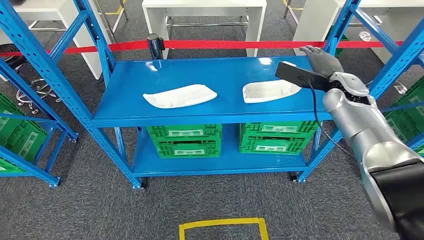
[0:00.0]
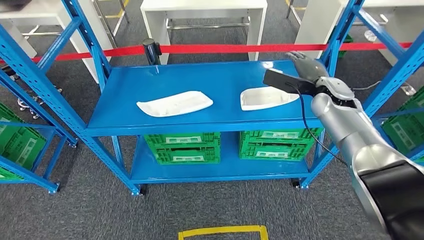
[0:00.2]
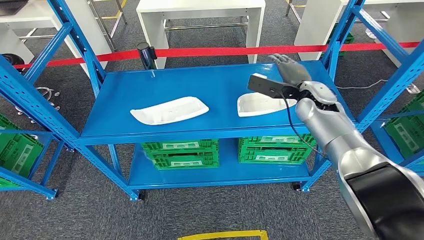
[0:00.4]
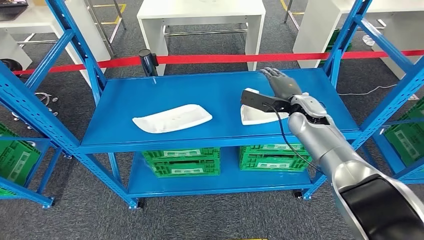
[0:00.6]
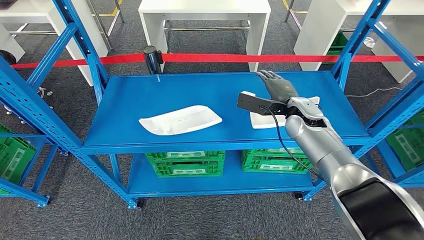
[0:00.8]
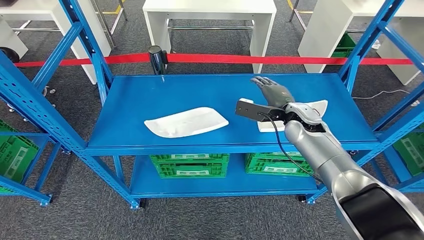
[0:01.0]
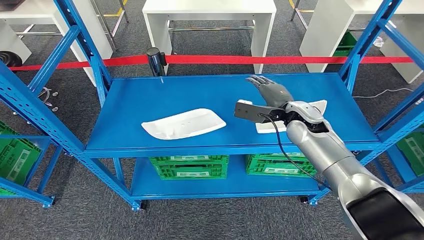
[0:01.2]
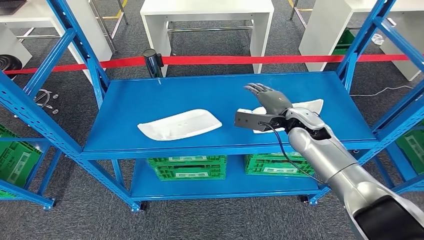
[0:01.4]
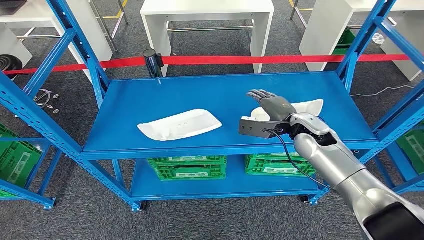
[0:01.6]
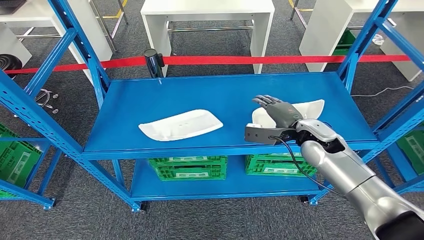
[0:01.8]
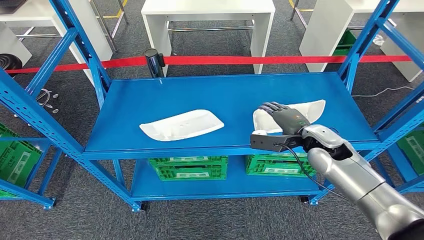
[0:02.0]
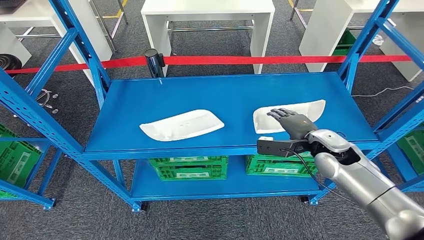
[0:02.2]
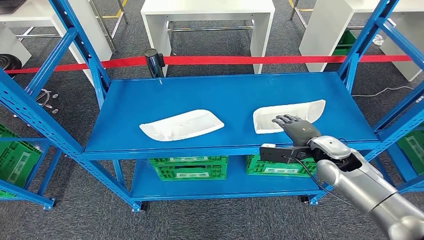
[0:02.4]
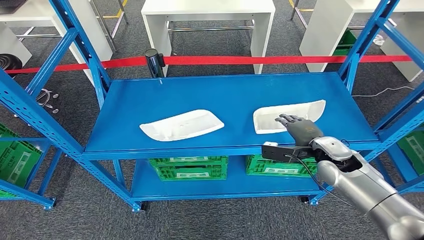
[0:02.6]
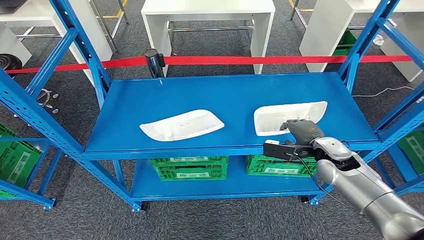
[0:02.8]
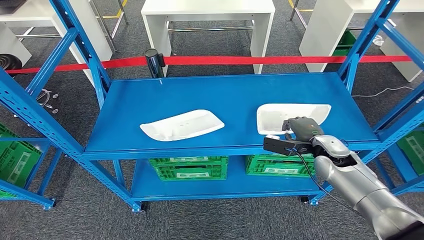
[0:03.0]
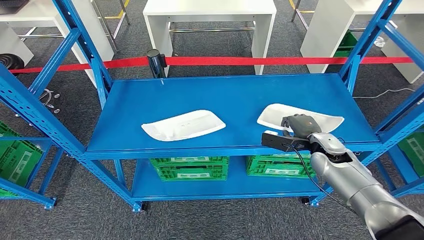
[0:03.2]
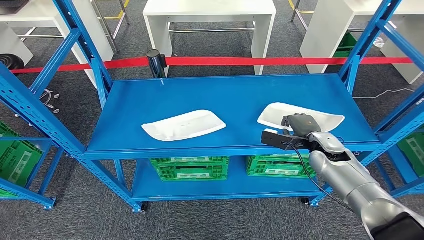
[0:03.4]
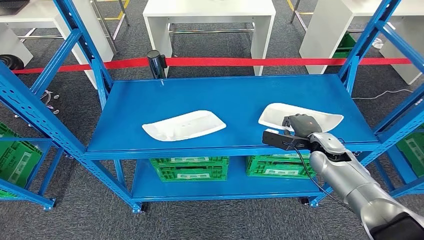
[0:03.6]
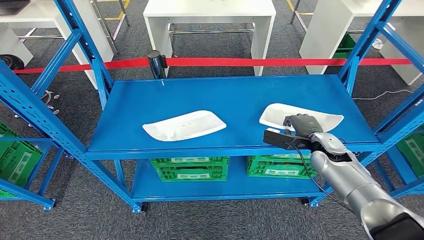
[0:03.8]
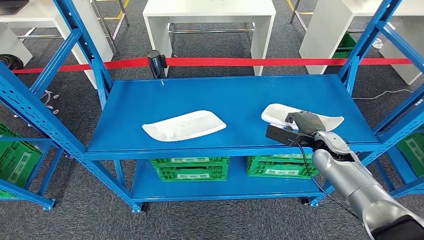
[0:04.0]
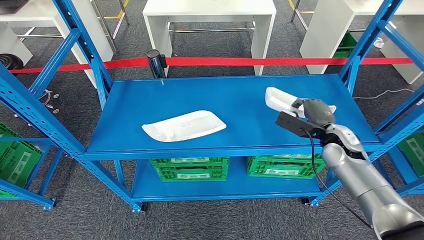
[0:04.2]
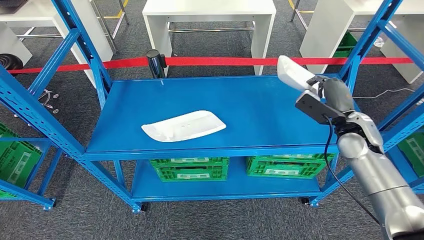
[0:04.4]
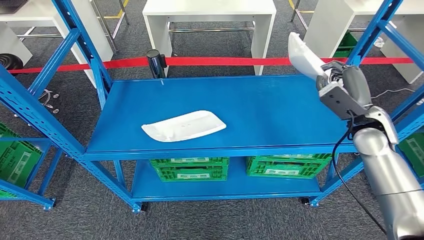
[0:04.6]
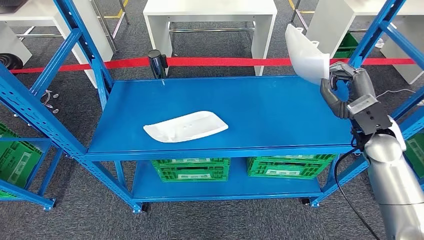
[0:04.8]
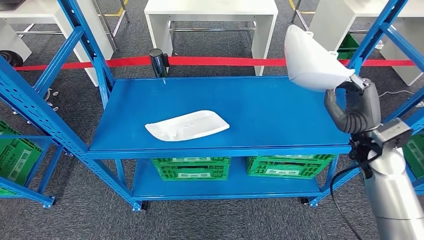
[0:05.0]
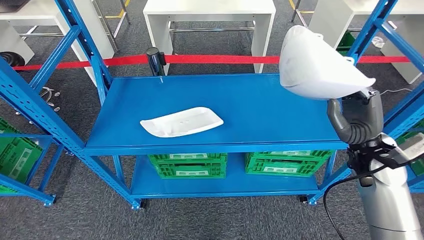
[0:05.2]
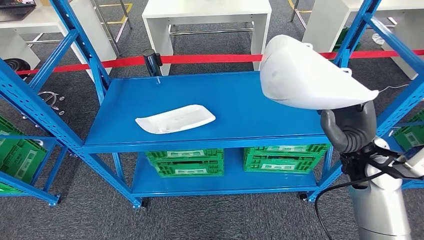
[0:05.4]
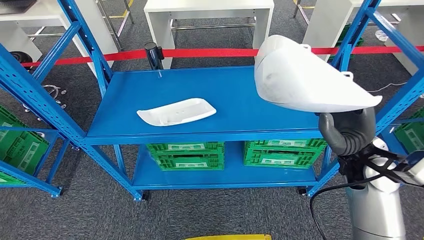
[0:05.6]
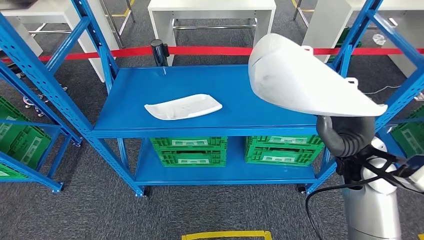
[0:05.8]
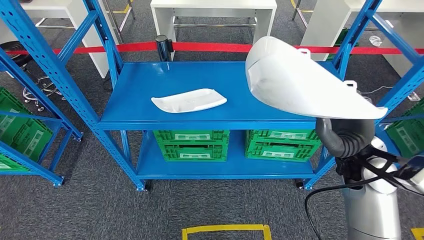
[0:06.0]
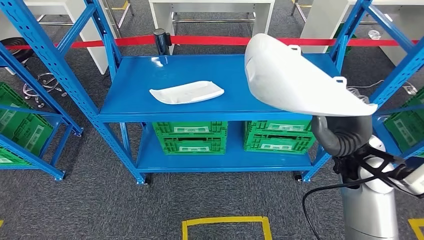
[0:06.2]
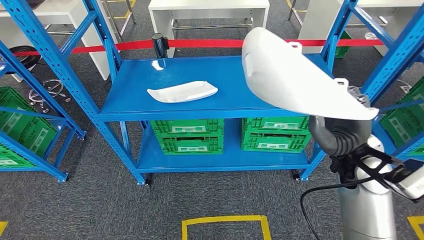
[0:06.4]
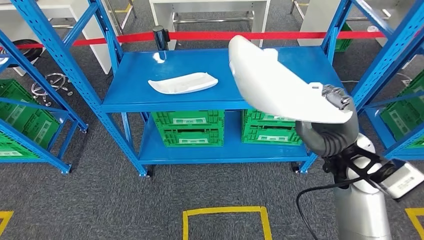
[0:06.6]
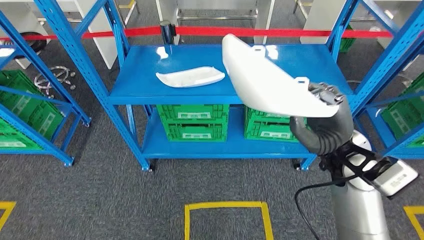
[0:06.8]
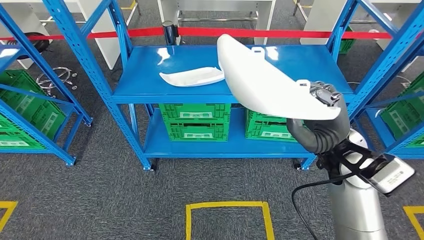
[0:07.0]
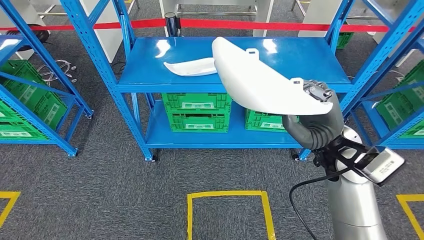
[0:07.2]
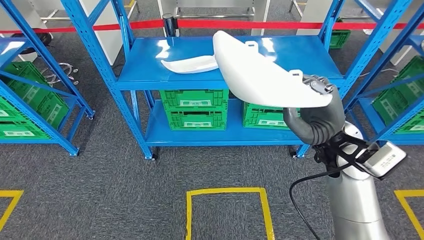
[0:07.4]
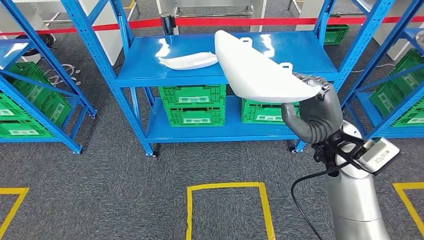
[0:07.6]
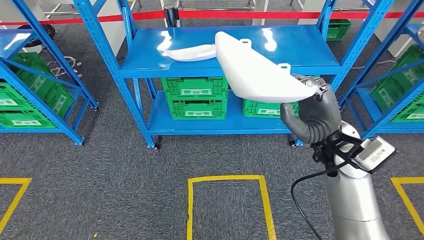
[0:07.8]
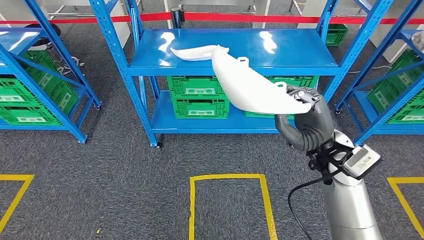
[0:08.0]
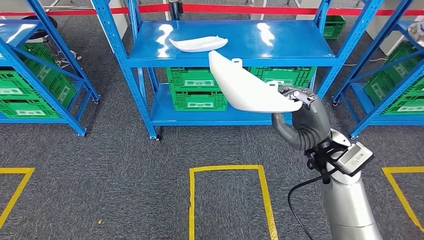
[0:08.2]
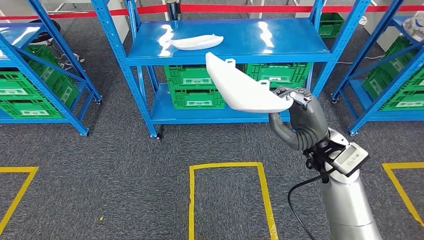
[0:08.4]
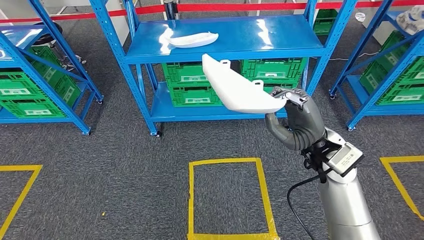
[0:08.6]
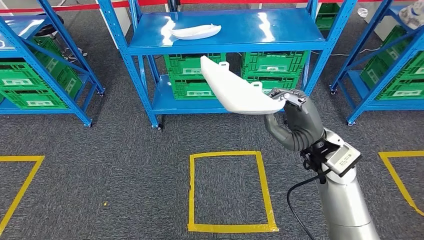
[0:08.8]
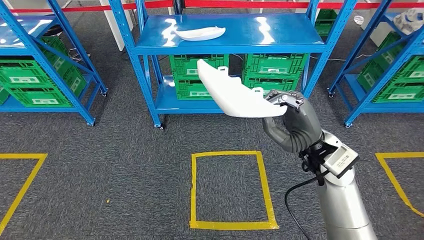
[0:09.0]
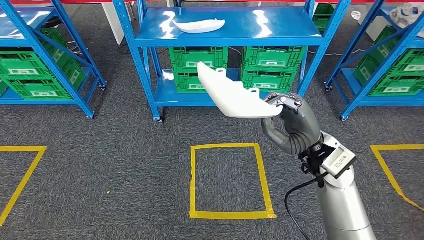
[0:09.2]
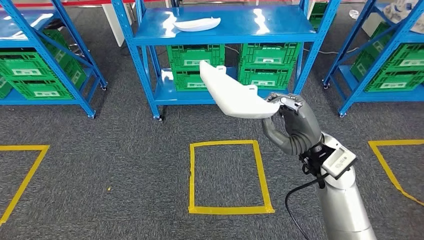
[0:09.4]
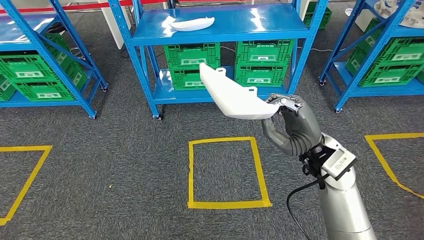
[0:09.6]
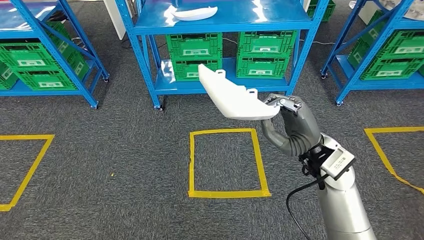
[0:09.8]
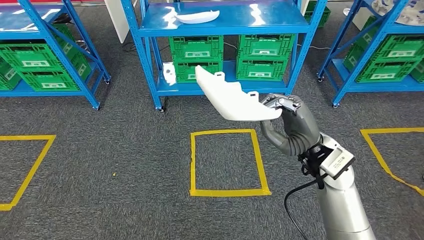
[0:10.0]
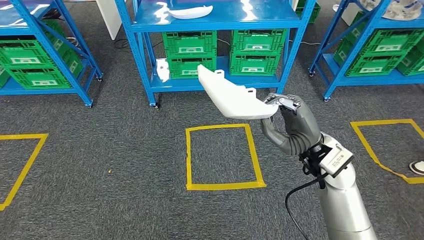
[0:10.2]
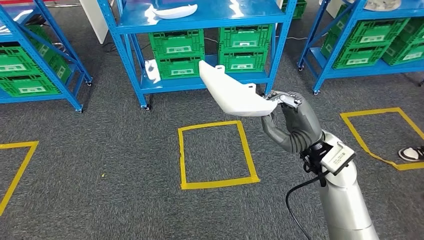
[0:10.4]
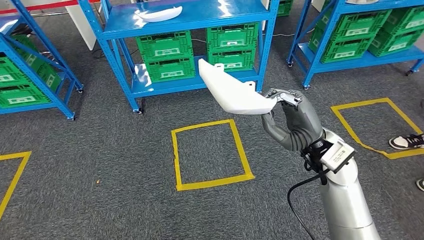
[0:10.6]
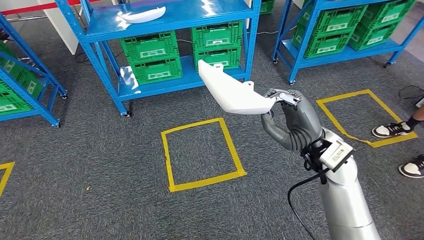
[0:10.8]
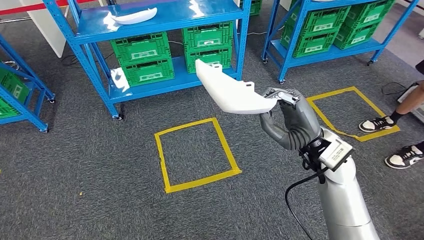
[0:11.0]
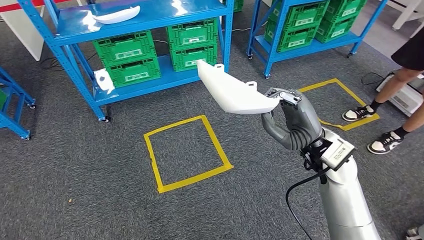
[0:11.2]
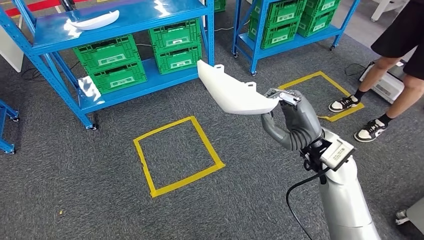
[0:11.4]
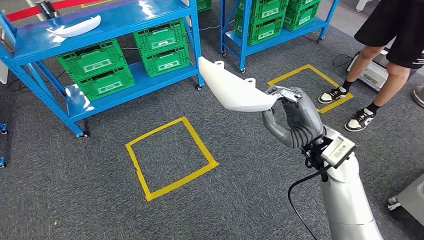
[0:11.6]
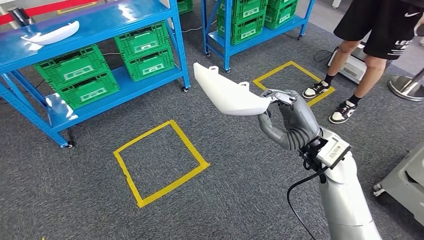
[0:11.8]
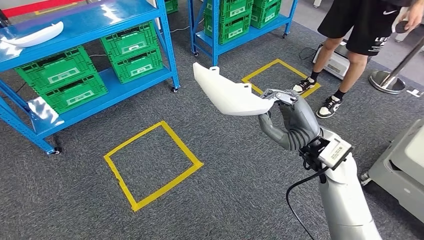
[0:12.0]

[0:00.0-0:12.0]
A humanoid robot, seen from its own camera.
Step, 0:00.0 to 0:06.4: Pick up the small component from the shelf.
0:01.6 to 0:03.0: The right hand travels to the right and downward by about 10 cm.
0:03.0 to 0:04.4: The right hand travels upward by some 10 cm.

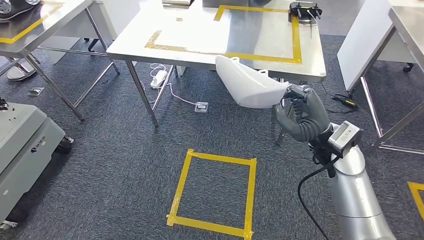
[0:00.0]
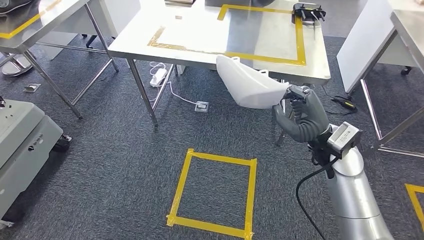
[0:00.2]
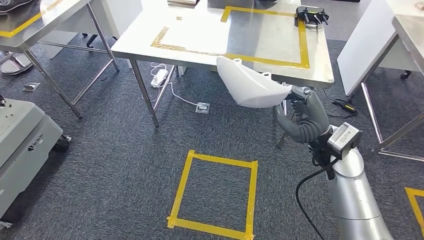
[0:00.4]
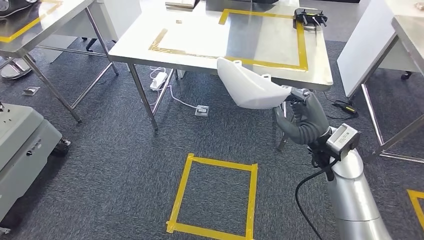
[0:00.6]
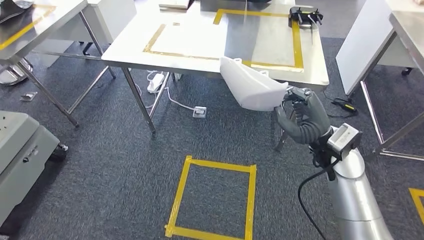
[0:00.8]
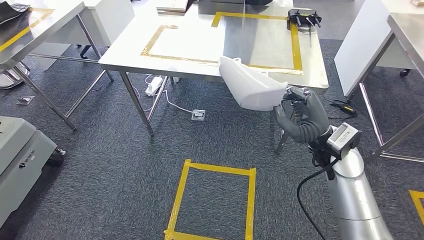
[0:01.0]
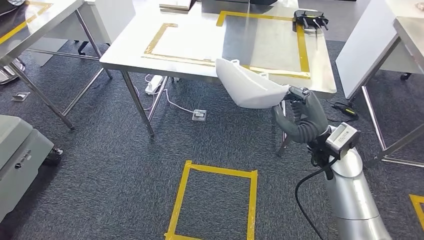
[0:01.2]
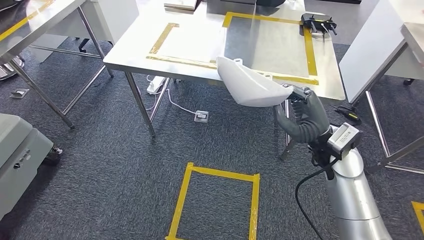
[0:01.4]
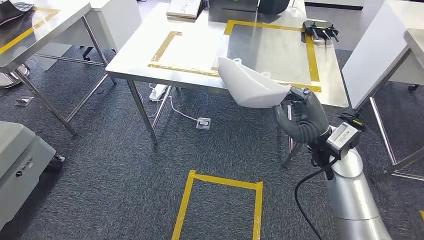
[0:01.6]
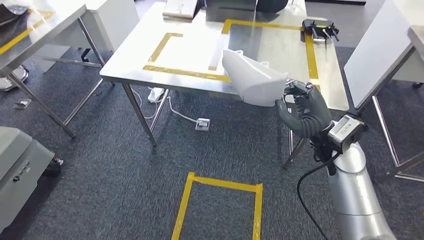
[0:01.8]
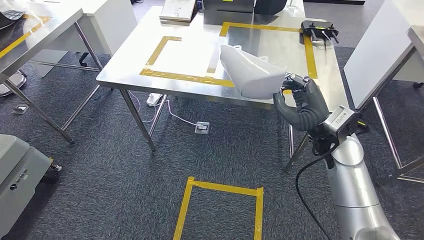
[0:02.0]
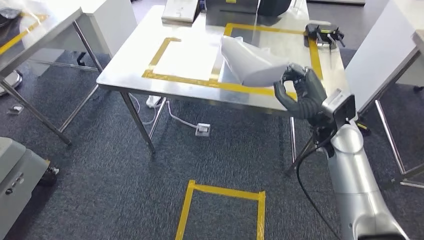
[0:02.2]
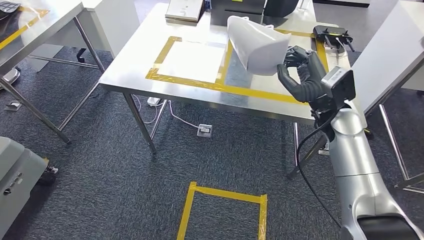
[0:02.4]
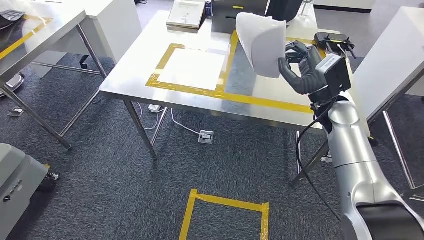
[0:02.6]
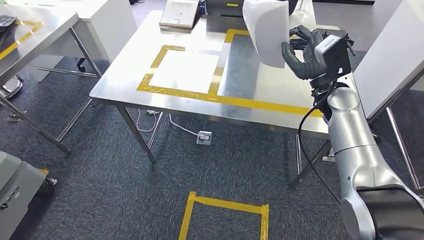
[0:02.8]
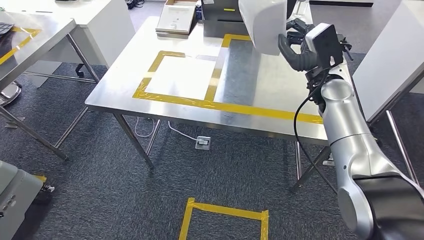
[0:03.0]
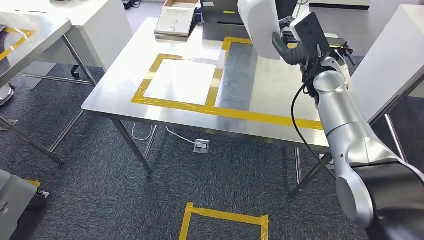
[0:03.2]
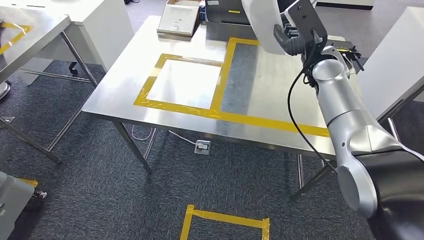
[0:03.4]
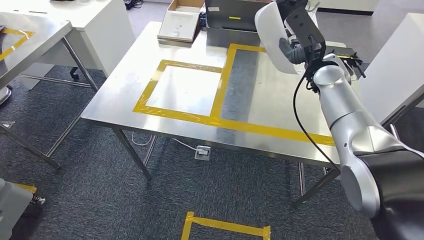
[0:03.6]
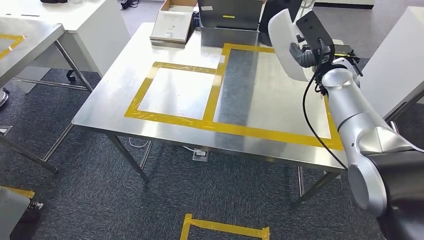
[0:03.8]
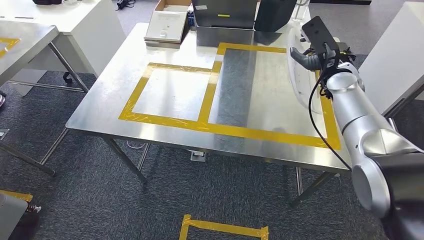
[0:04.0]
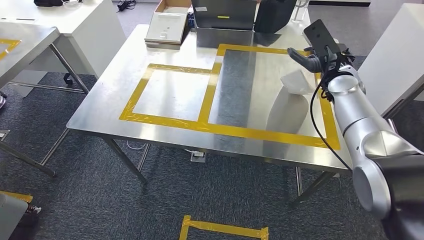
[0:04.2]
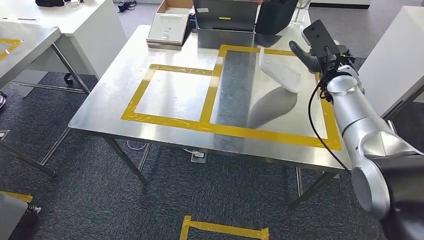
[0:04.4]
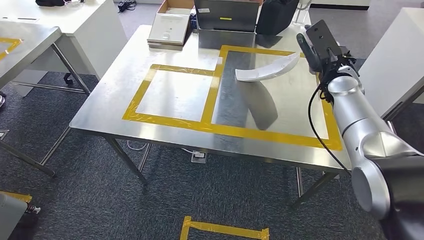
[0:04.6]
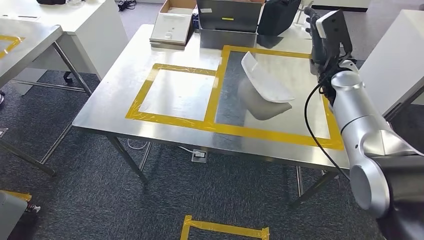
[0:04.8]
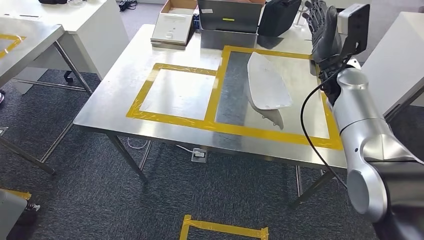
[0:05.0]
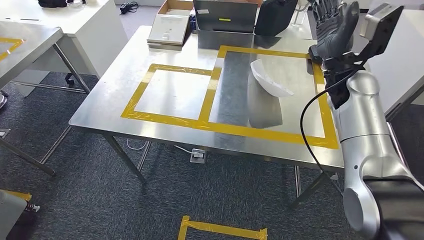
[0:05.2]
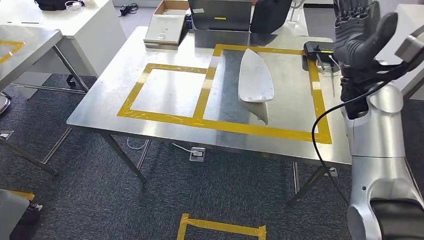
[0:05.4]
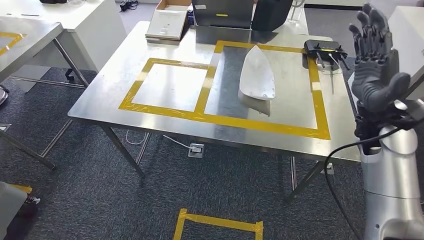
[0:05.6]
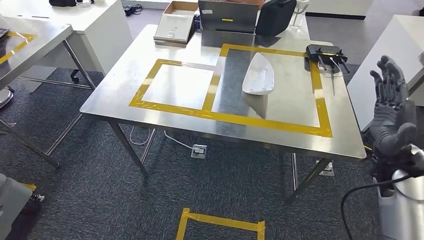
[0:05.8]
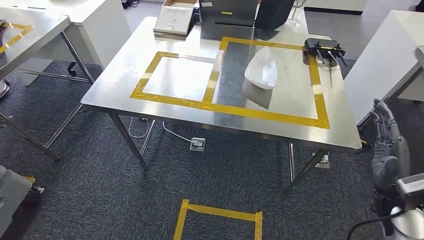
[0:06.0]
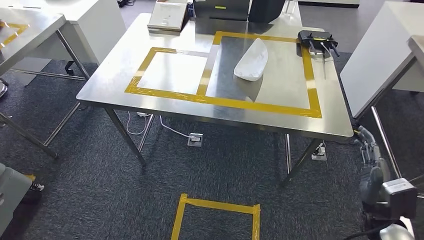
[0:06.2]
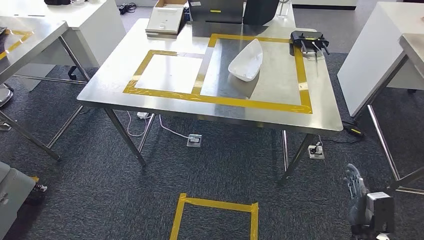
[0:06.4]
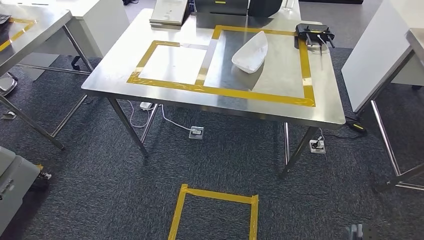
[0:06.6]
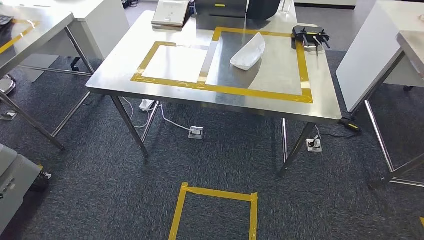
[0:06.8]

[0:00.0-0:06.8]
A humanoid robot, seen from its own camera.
Step, 0:00.0 to 0:03.6: Move the small component to the workbench.
Step, 0:03.8 to 0:05.2: Insert the small component into the corresponding slot on the workbench.
